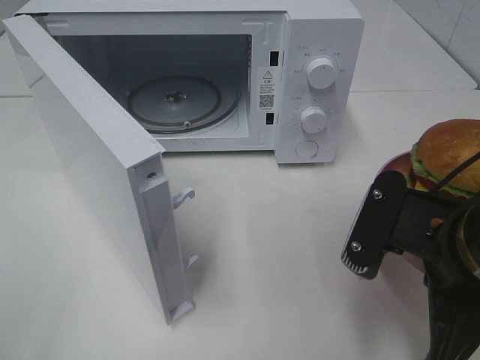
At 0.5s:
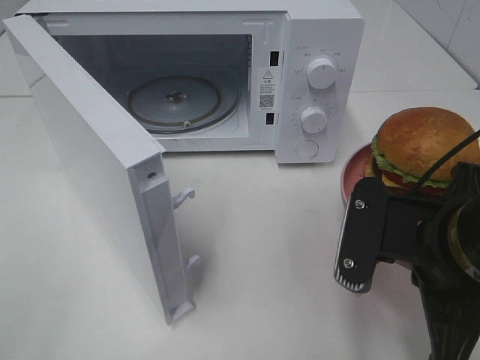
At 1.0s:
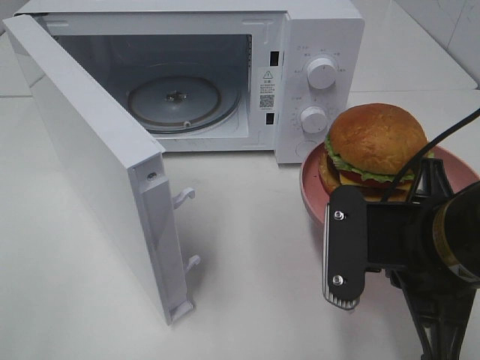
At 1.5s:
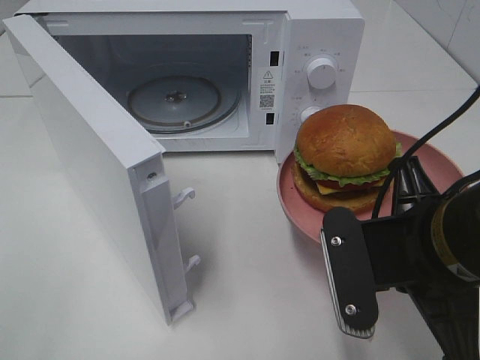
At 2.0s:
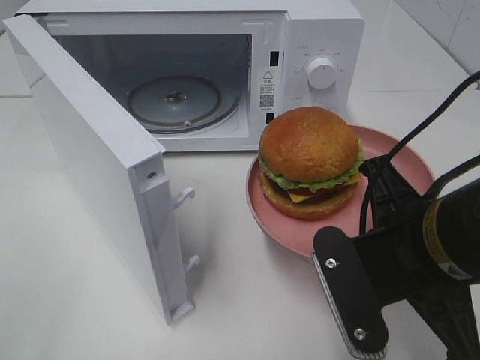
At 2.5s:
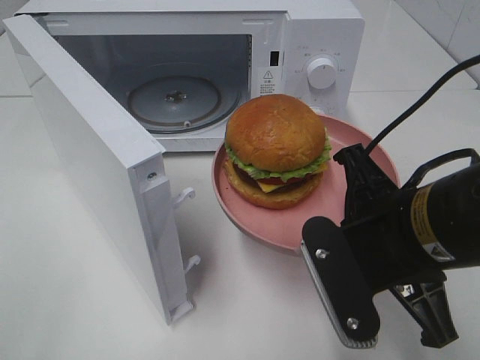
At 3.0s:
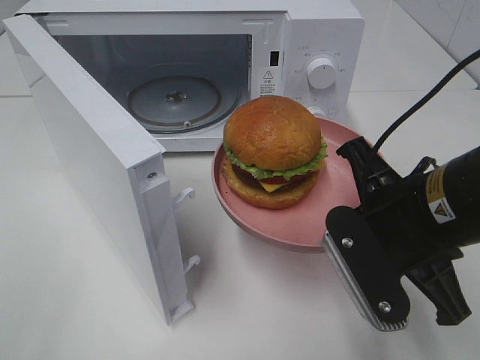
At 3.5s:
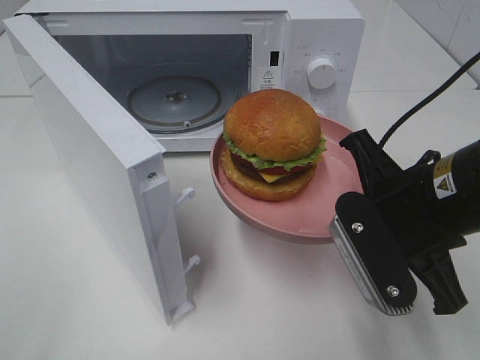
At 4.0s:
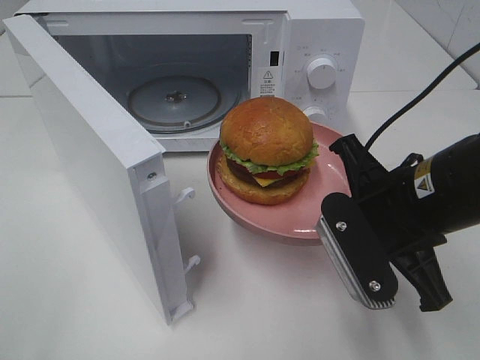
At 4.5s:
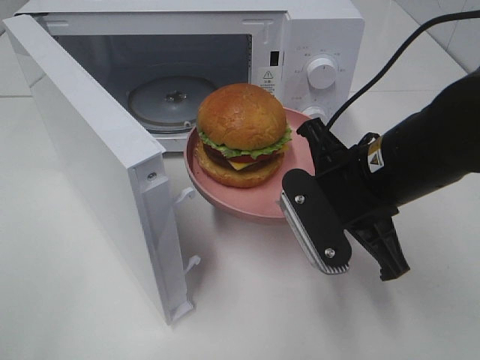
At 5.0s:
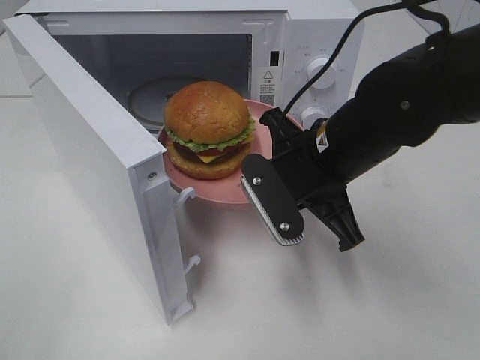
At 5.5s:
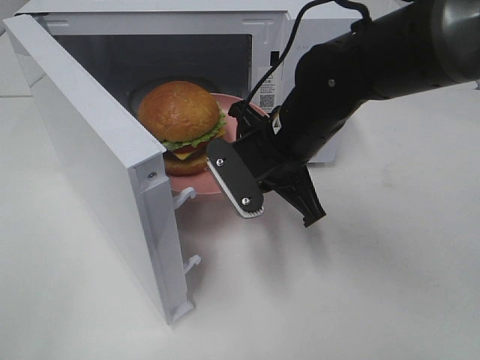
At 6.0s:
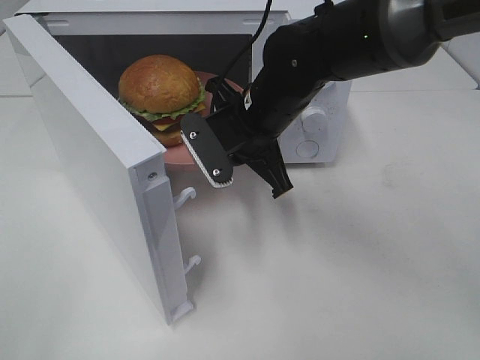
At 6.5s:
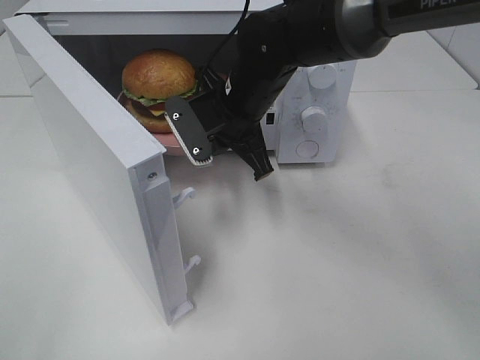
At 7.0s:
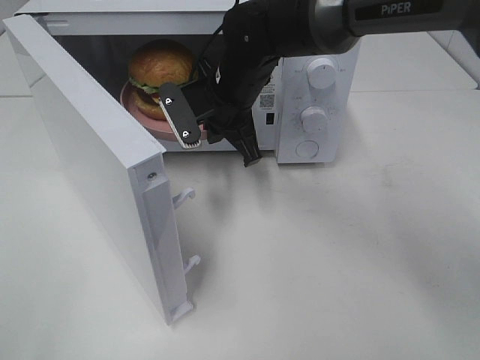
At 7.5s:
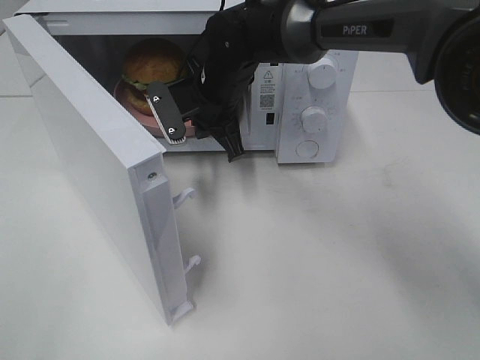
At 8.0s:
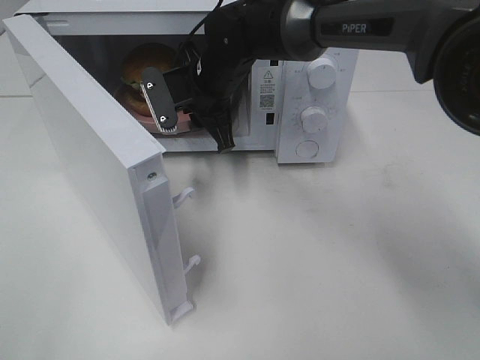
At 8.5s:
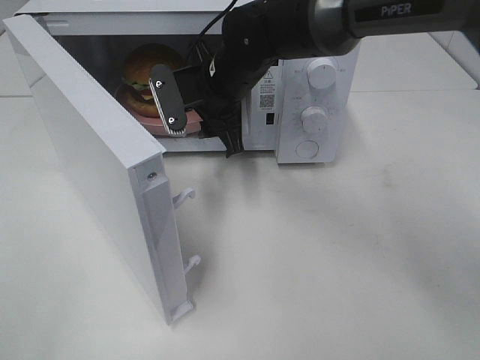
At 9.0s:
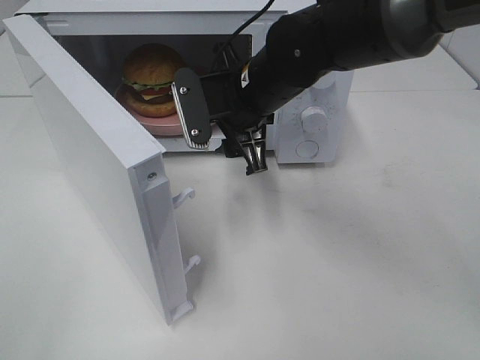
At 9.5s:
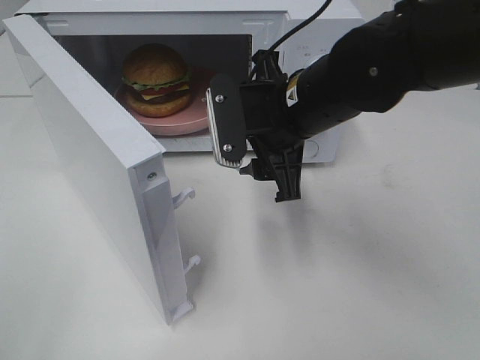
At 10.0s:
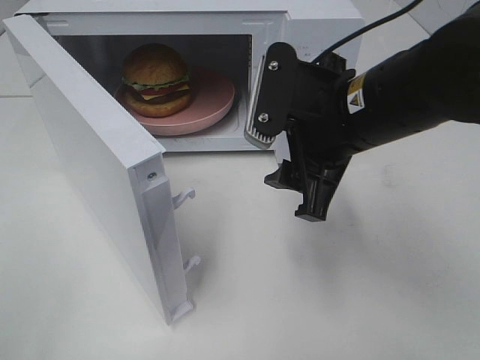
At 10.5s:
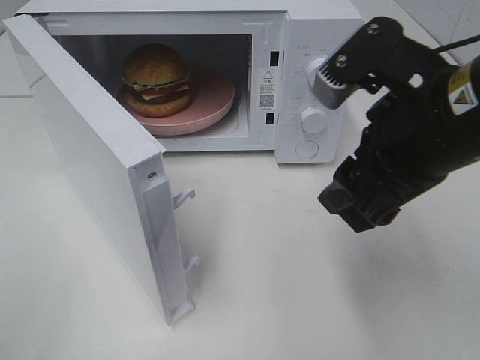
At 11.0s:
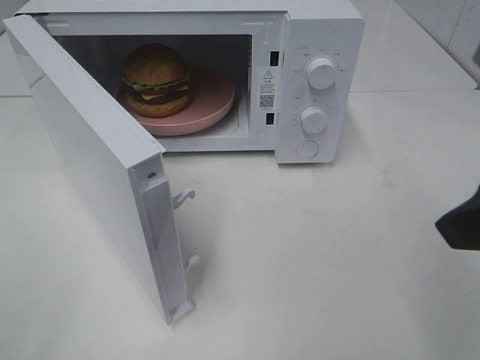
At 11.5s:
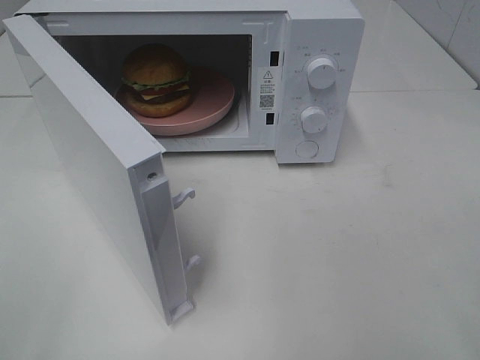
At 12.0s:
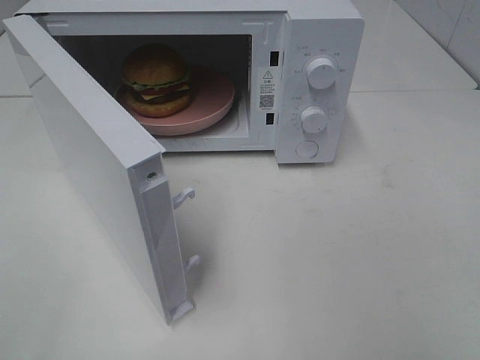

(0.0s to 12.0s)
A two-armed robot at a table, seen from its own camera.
Task of the whole recording: Heat the burger.
Step, 0.0s - 8.0s: Right hand: place the plate in the microwave.
2.0s - 4.0s: The right gripper heads forward, covering about 5 cm.
4.0s - 6.0s: The right gripper travels forward and to the left by some 20 cm.
6.0s - 8.0s: The right gripper moves forward and to the left, some 10 cm, and opens.
8.0s - 10.0s: The right gripper shifts some 20 cm backward and to the right.
10.0s - 12.0s: The right gripper heads backward, to the right and upward, covering approximately 30 cm.

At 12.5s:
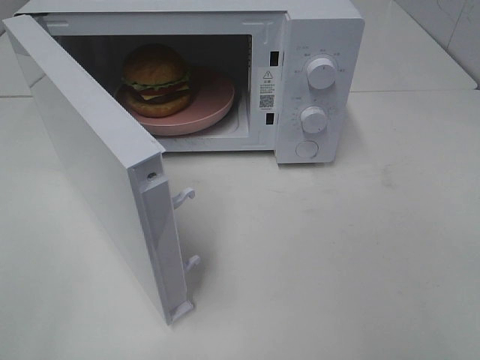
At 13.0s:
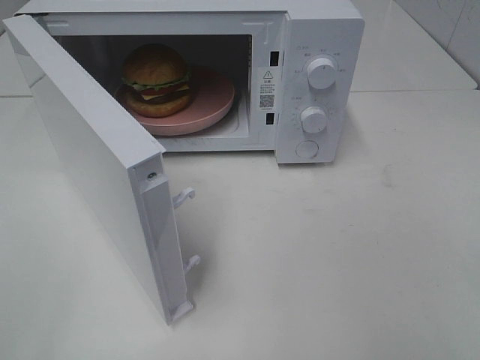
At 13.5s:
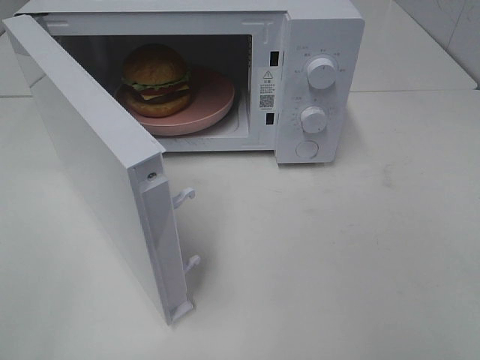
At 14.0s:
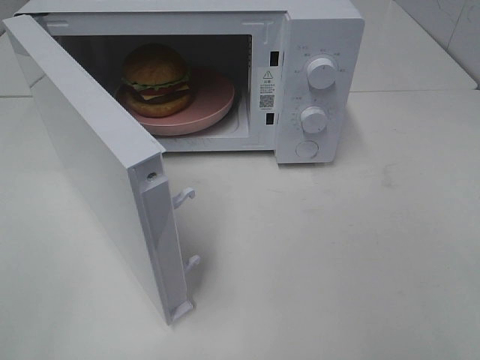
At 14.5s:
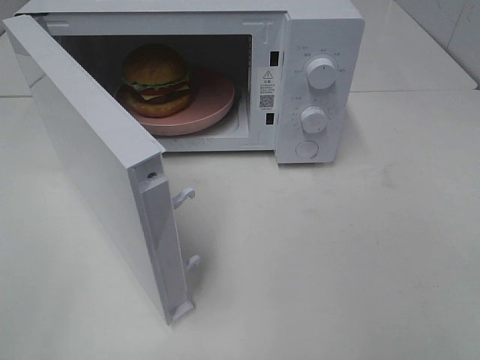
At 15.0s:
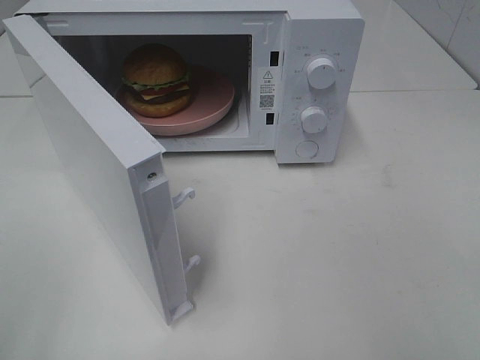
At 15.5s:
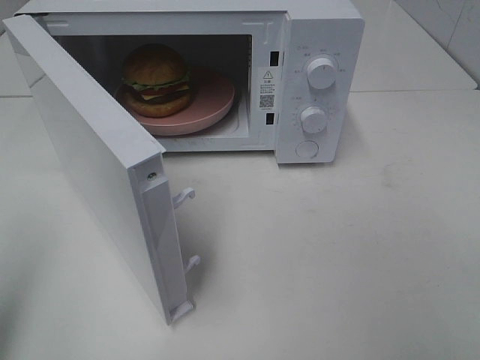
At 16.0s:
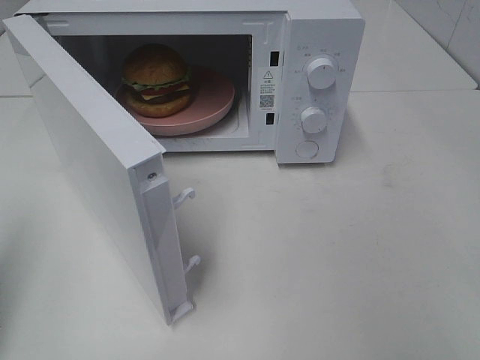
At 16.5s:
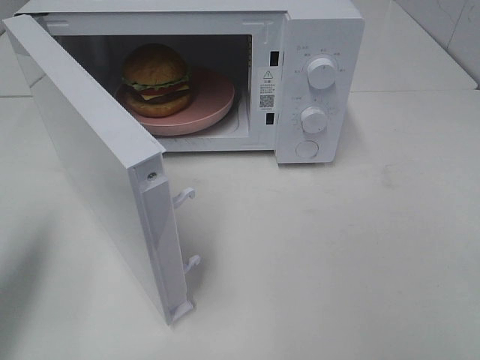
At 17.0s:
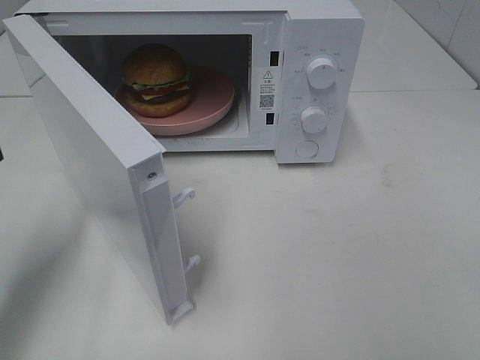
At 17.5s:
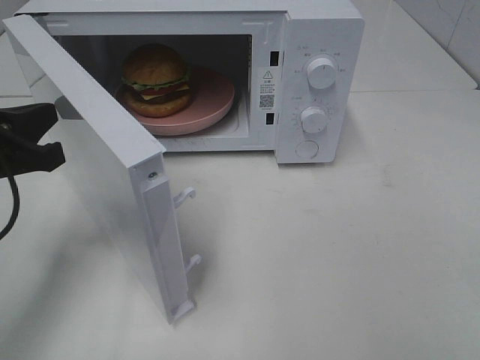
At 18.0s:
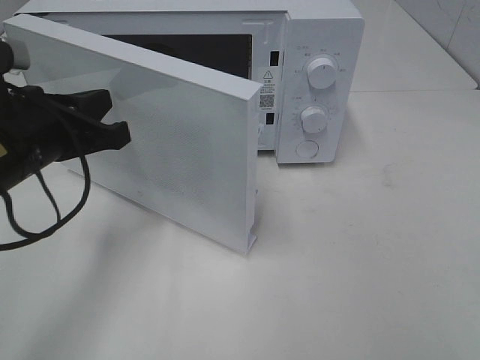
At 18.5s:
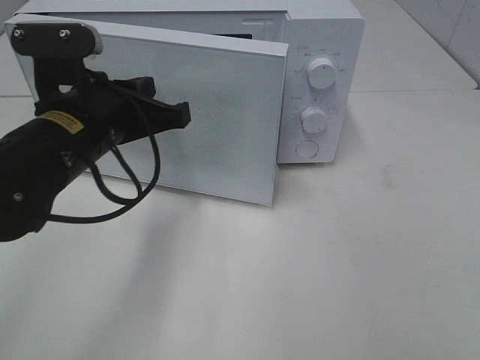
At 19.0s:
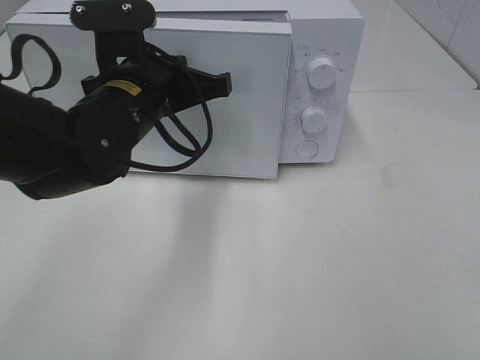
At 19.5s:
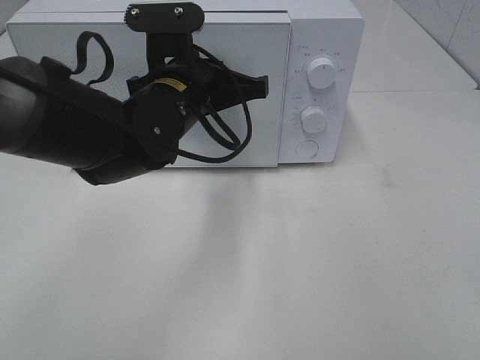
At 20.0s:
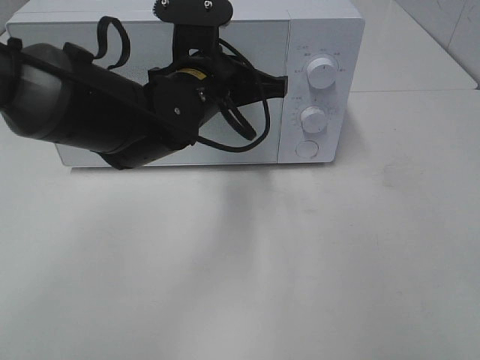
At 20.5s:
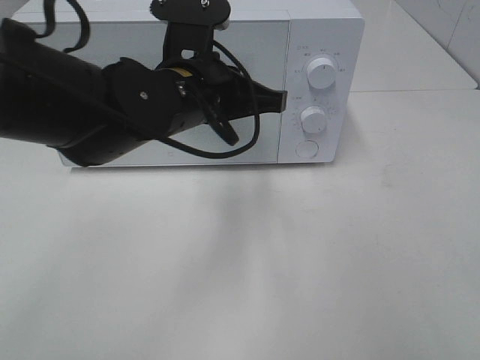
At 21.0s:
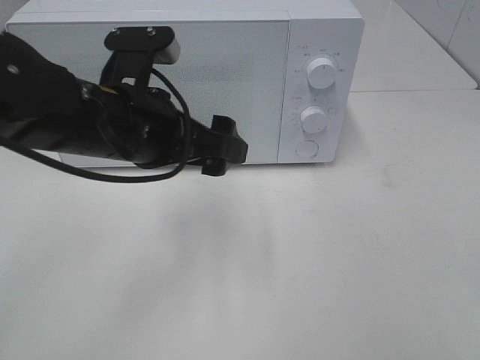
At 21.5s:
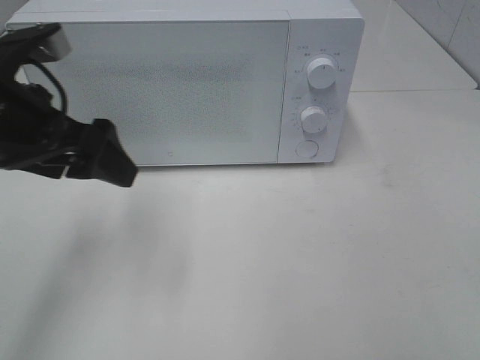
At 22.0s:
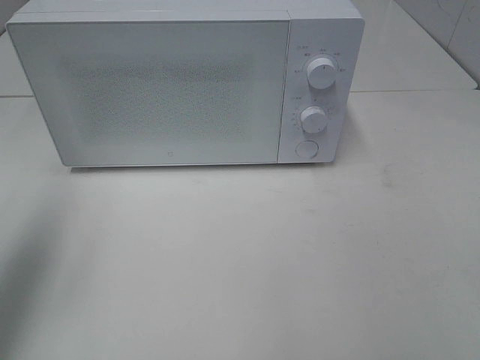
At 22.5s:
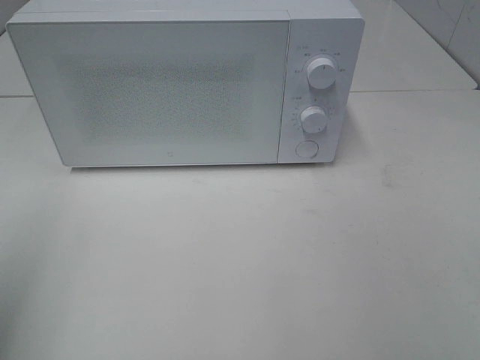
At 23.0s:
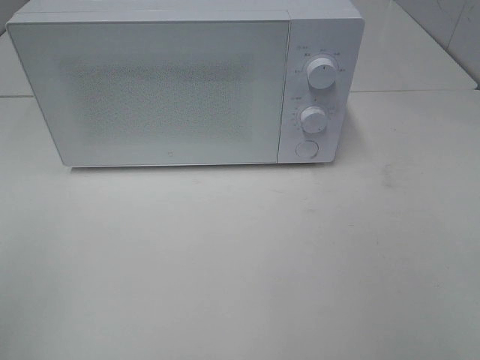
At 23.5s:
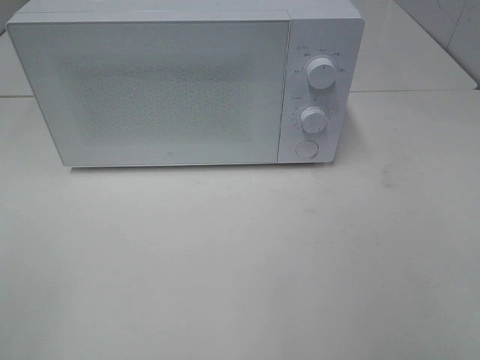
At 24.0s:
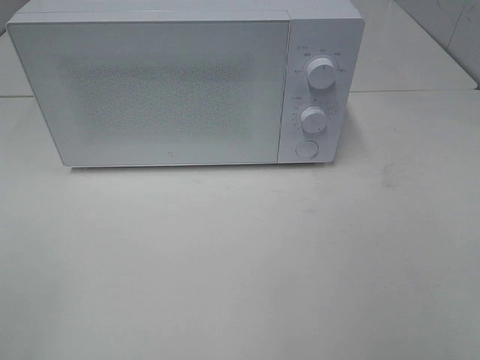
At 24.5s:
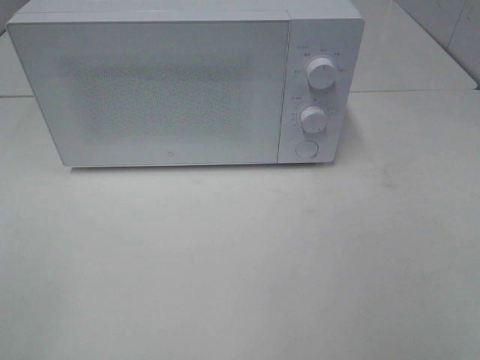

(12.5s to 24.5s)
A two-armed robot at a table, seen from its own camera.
Task of the whole recording: Heat the burger.
Step, 12.5s - 20.5s: Left hand: close the microwave door.
14.5s - 16.5s: The left gripper travels forward by roughly 15 cm, and closes.
16.5s - 18.5s: The left gripper heads to the right and forward, covering approximately 20 cm.
18.5s - 20.5s: The left gripper shifts roughly 10 cm to the right.
20.5s - 22.5s: The left gripper heads to the left and backward, covering approximately 35 cm, and opens its fingers.
22.5s - 24.5s: The left gripper goes roughly 10 cm backward.

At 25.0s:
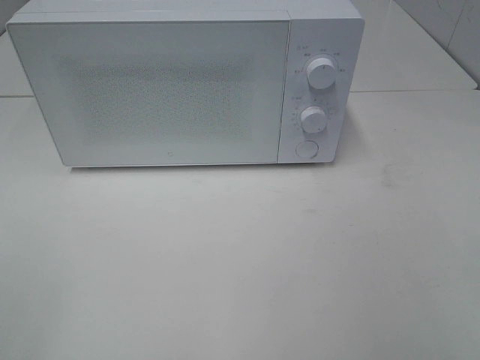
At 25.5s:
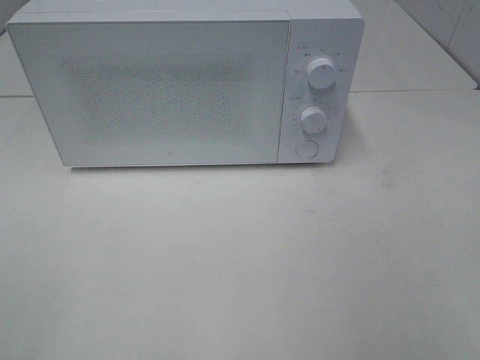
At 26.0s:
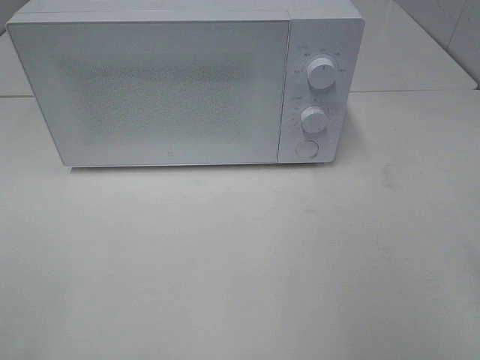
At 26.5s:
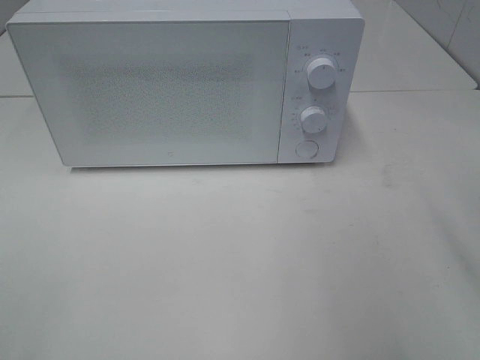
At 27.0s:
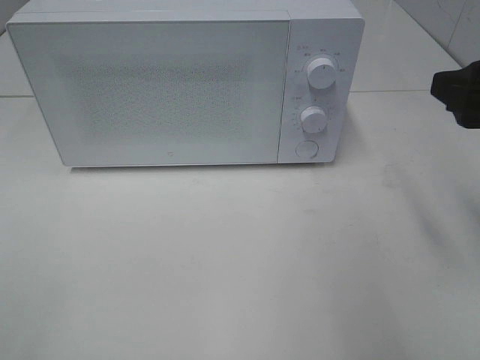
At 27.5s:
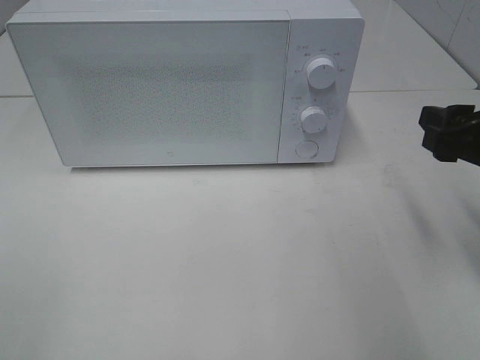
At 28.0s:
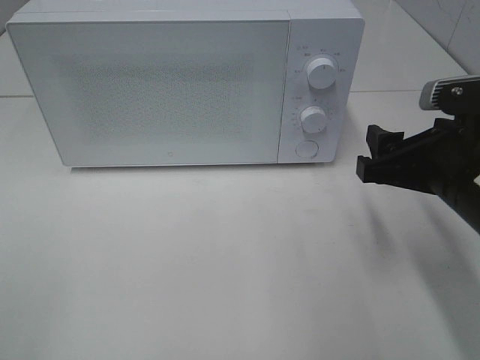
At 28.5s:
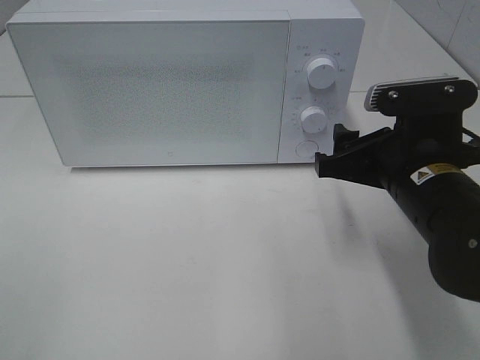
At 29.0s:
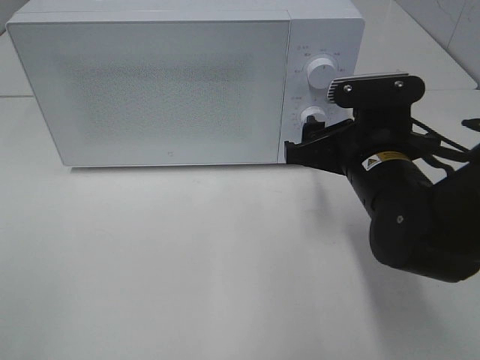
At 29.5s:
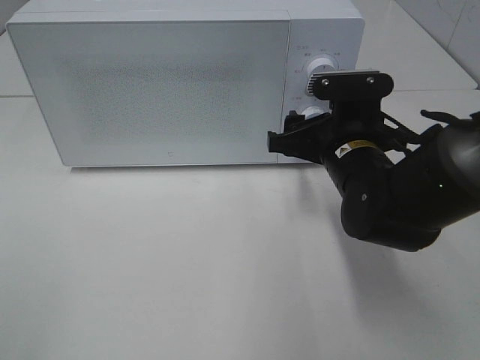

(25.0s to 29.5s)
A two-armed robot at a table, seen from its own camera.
Task of the whole recording: Heat the burger.
25.0s - 27.0s: The right gripper goes roughly 20 cm forward.
27.0s - 29.5s: The right gripper heads to the left, downward and forward, covering about 20 cm.
